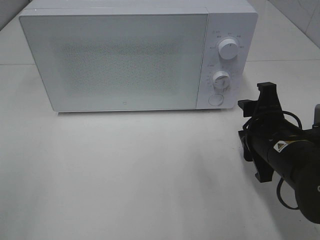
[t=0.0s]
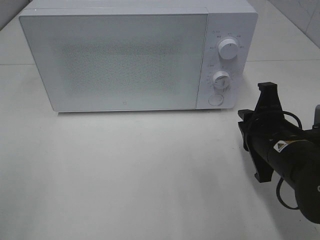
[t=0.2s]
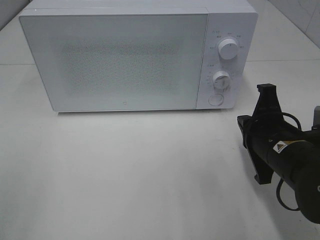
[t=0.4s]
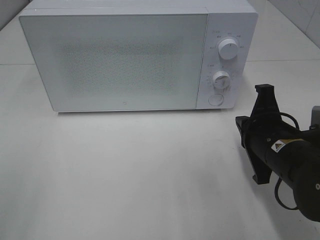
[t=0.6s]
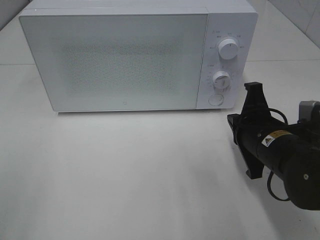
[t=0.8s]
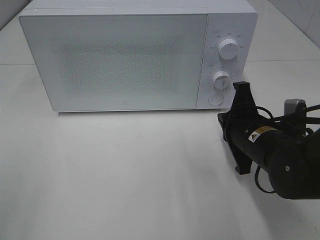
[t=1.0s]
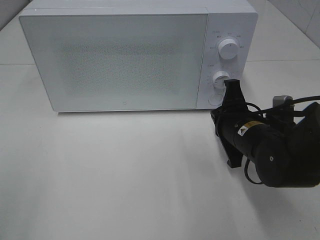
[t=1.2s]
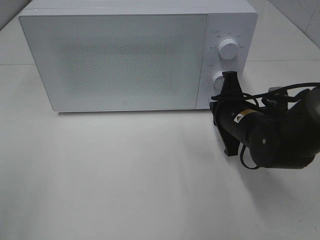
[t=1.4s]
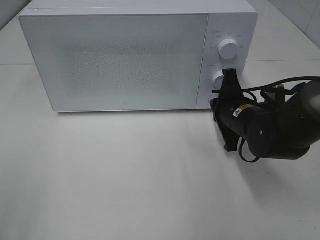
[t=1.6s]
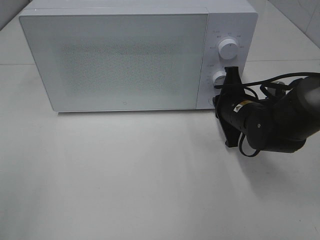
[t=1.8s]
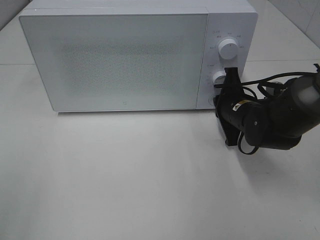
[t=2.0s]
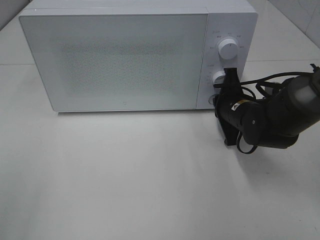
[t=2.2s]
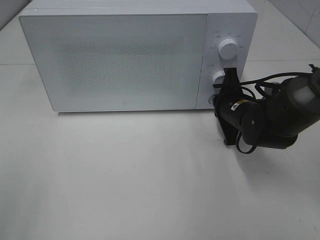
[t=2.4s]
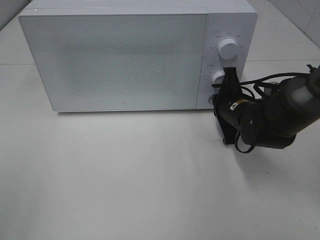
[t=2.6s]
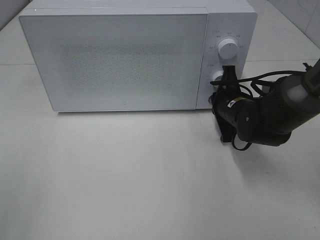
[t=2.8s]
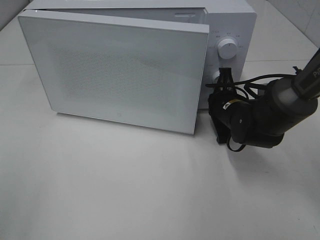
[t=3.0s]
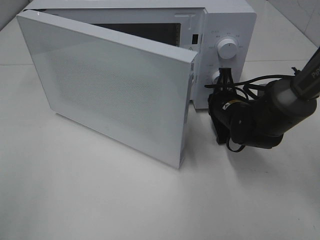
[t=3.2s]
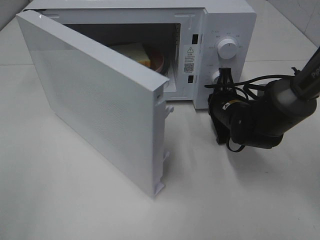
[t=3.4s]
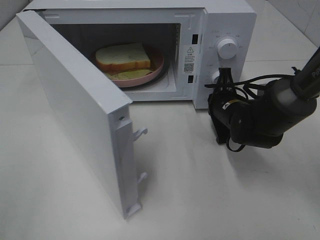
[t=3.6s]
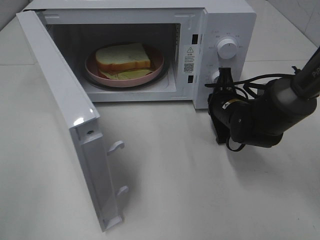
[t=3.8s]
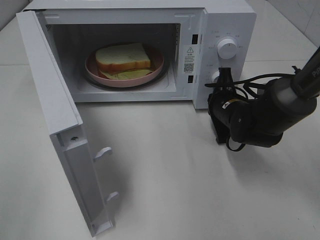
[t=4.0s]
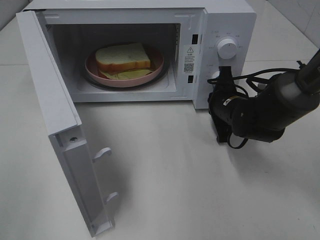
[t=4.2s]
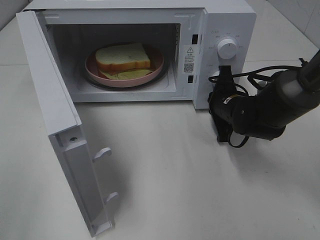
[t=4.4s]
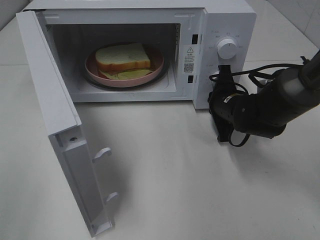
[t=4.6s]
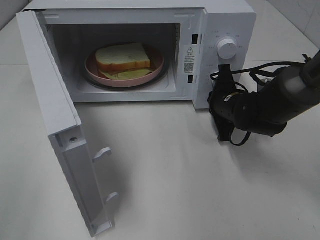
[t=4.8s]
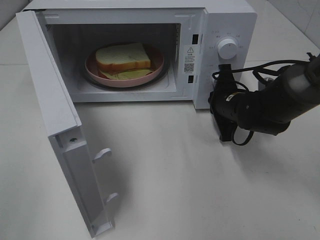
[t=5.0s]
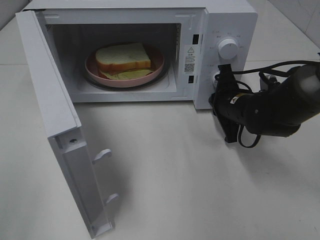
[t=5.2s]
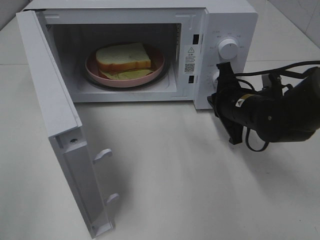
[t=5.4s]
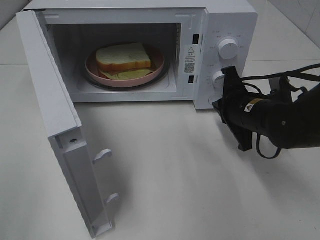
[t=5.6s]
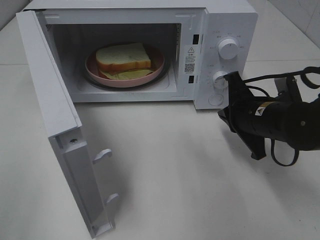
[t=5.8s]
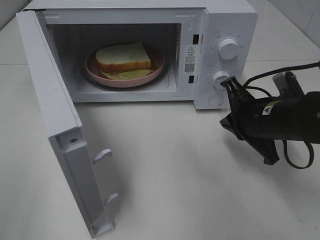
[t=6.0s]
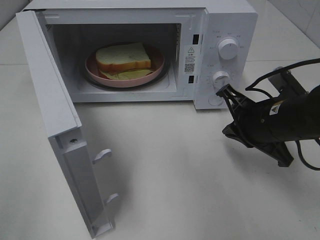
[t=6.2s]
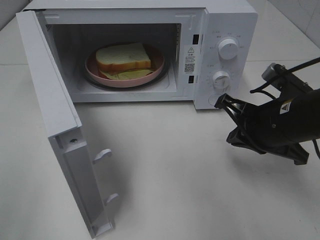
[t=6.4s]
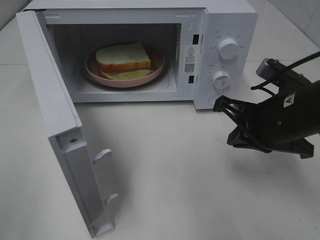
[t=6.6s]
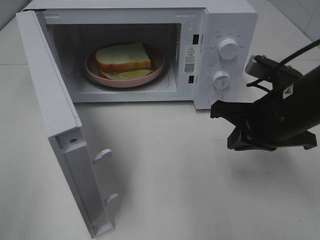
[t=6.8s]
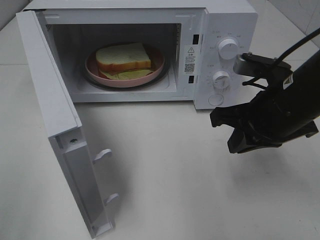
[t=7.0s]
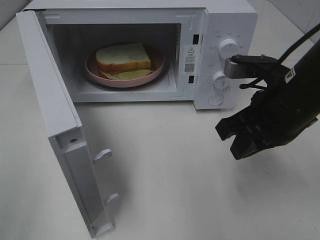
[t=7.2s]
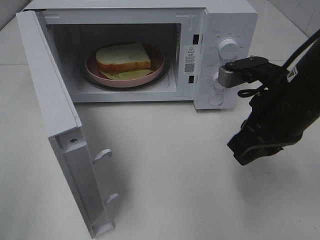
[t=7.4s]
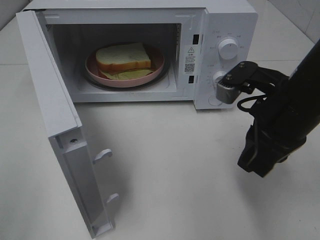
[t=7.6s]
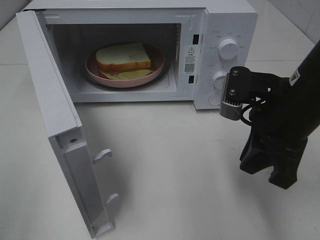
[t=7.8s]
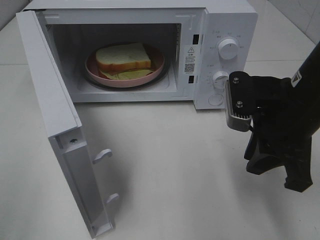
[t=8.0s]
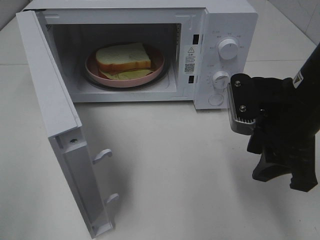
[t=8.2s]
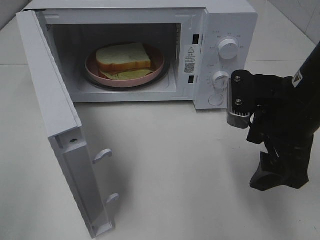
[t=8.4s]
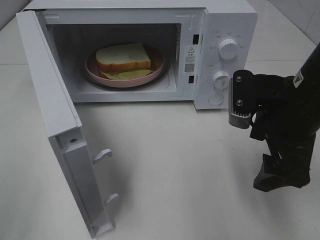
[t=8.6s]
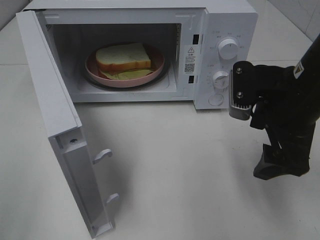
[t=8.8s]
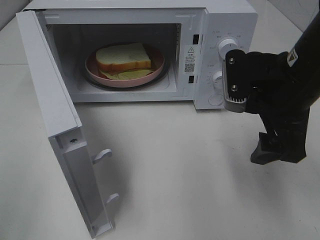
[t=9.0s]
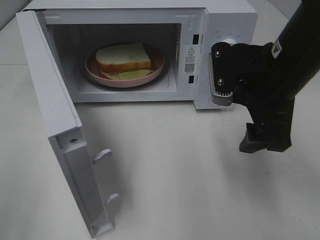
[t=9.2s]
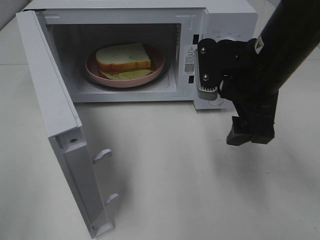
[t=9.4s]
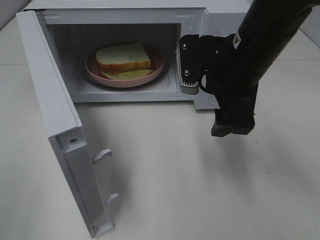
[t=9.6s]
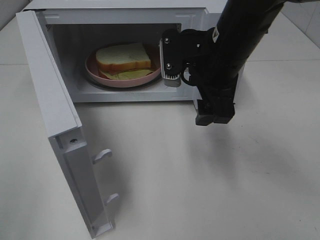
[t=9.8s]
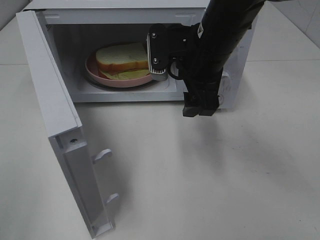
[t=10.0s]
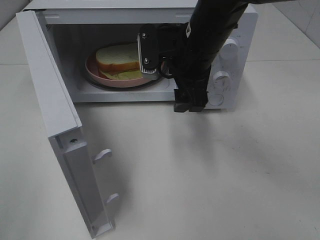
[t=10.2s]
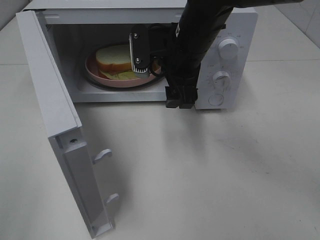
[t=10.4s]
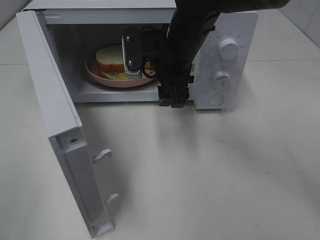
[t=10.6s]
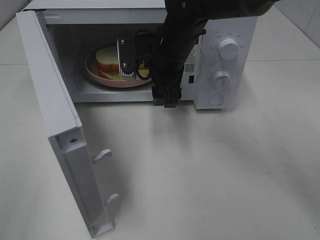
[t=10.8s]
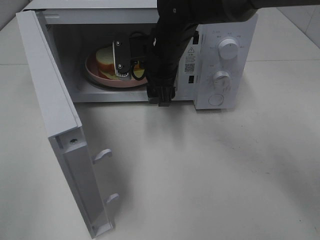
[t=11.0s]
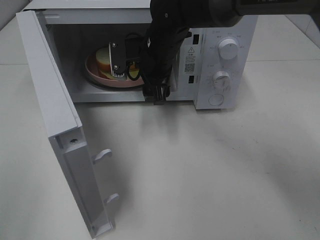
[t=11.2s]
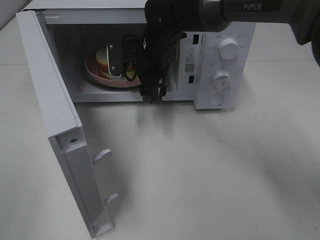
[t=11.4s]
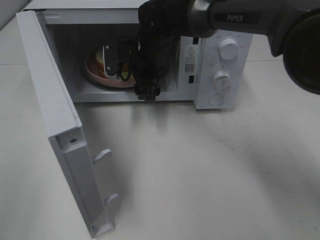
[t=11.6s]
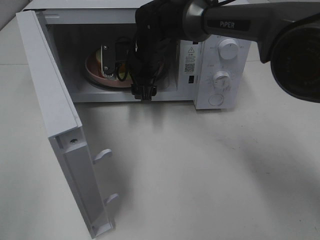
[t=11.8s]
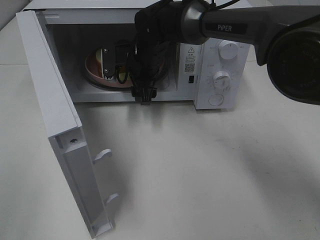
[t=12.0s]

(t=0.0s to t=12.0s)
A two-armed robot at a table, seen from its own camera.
Task of the whole recording: Heat Sandwich.
Step, t=0.0s - t=5.2s: Right hand: press the switch.
t=0.0s - t=1.6s: The right gripper shifts about 10 cm forward, and closes.
t=1.6s - t=3.0s: The right gripper changes place by some 5 cm.
t=4.4s - t=6.0s: The right gripper heads backward and upward, covering approximately 10 cm.
t=6.0s - t=7.6s: The right gripper shifts approximately 5 cm upward.
t=7.6s - t=9.0s: The right gripper opens its fingers.
t=9.0s - t=10.4s: The right gripper shifts roughly 15 cm to the left and forward.
t=10.4s - t=12.0s: The right gripper goes some 15 cm forward, downward and to the left.

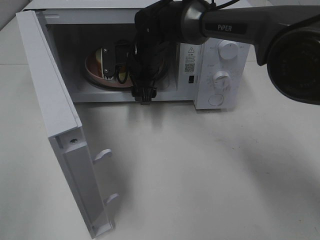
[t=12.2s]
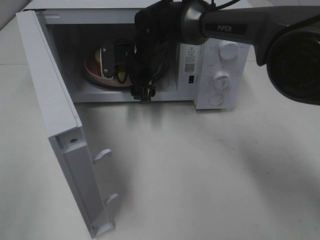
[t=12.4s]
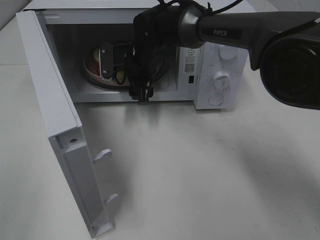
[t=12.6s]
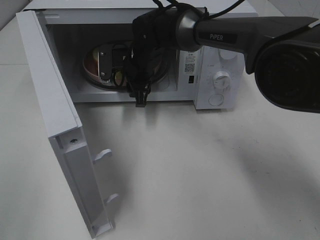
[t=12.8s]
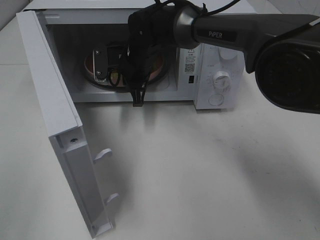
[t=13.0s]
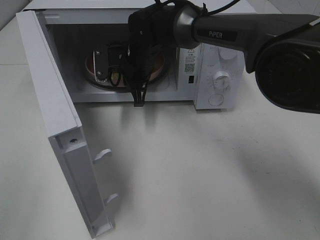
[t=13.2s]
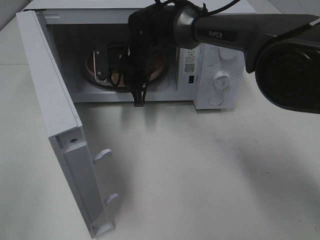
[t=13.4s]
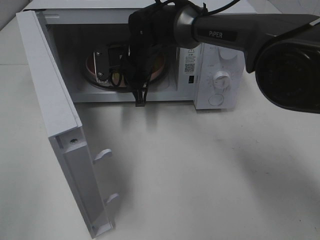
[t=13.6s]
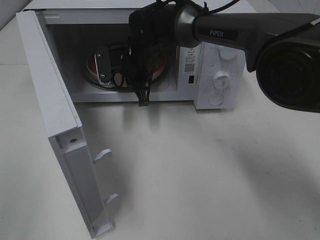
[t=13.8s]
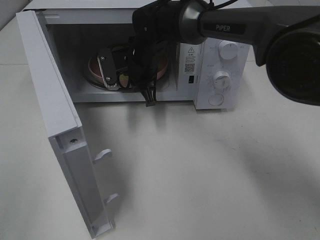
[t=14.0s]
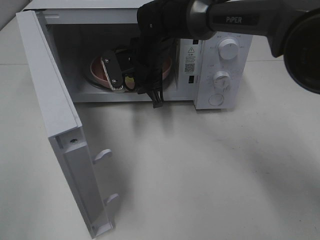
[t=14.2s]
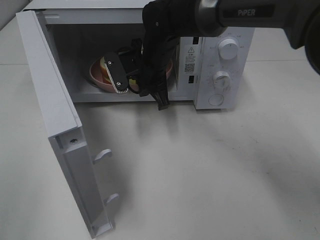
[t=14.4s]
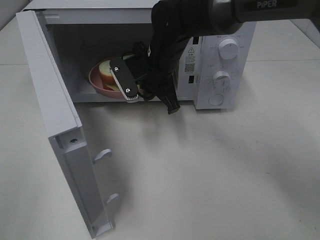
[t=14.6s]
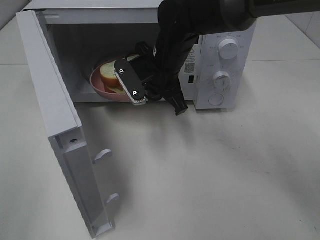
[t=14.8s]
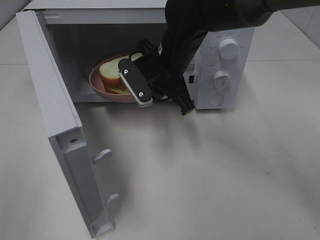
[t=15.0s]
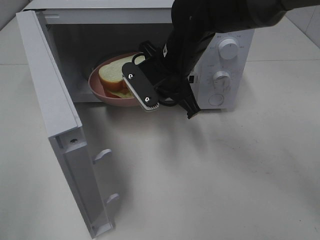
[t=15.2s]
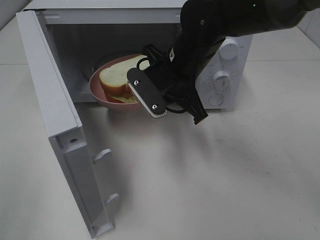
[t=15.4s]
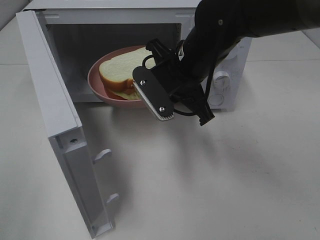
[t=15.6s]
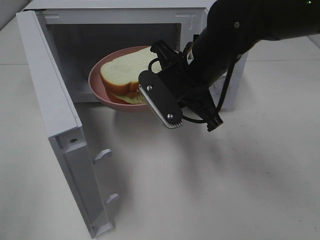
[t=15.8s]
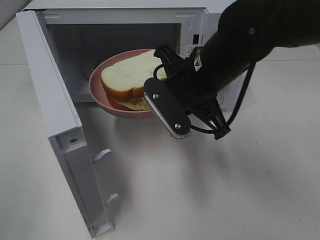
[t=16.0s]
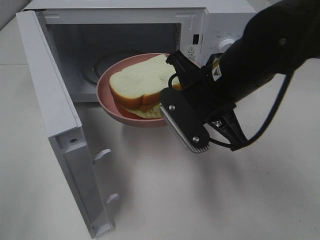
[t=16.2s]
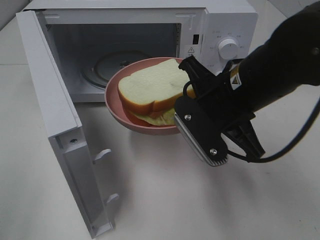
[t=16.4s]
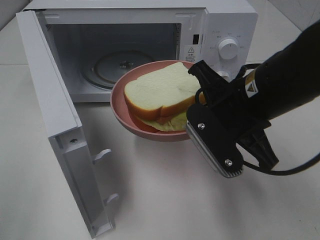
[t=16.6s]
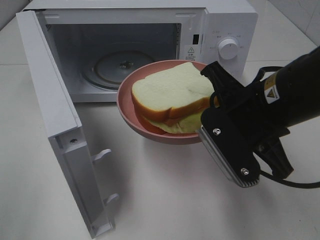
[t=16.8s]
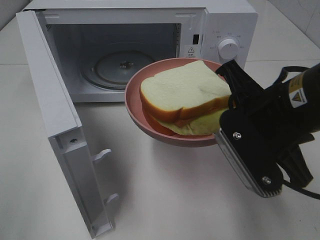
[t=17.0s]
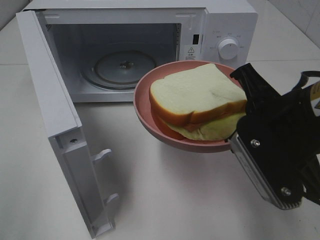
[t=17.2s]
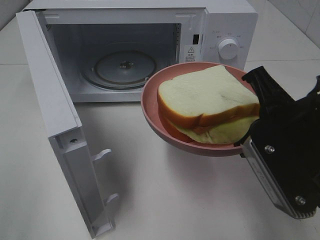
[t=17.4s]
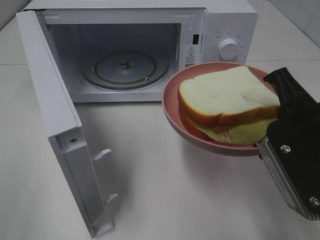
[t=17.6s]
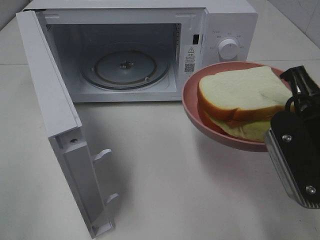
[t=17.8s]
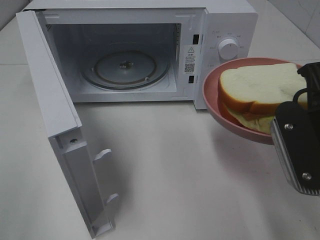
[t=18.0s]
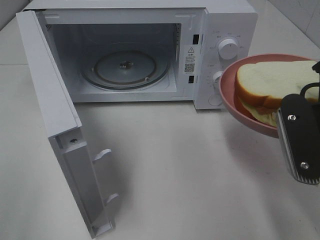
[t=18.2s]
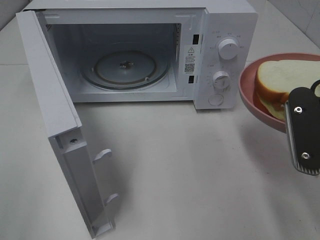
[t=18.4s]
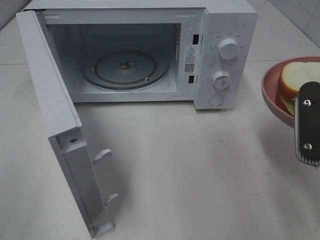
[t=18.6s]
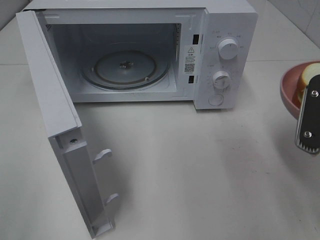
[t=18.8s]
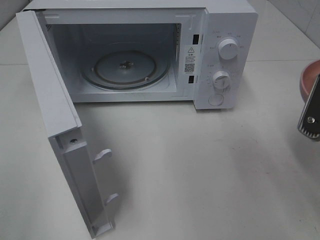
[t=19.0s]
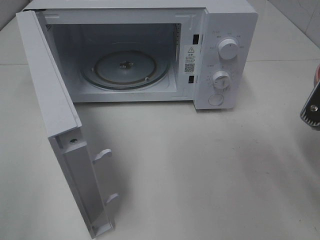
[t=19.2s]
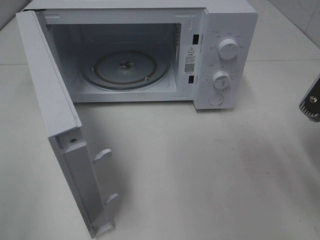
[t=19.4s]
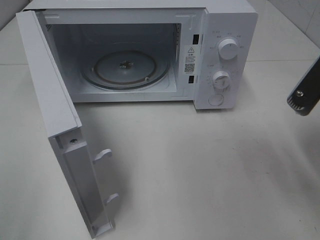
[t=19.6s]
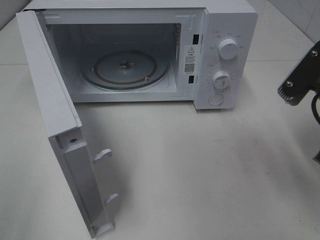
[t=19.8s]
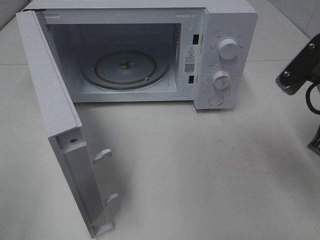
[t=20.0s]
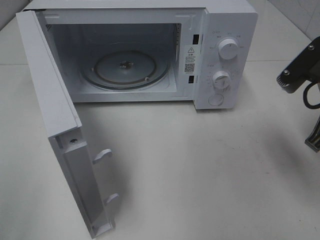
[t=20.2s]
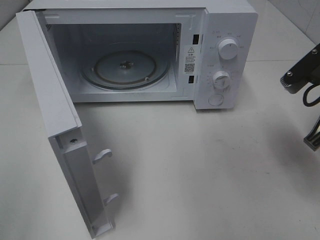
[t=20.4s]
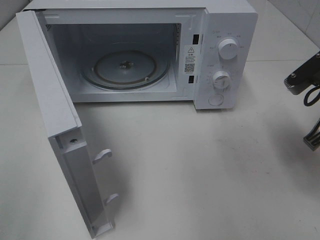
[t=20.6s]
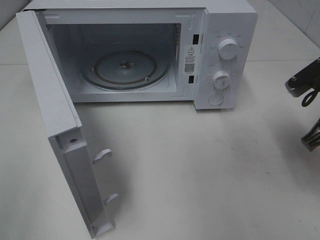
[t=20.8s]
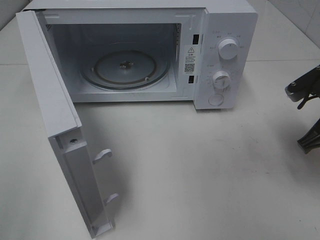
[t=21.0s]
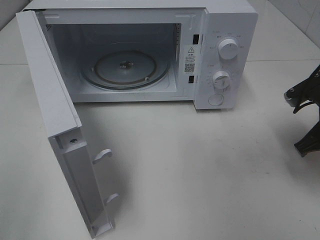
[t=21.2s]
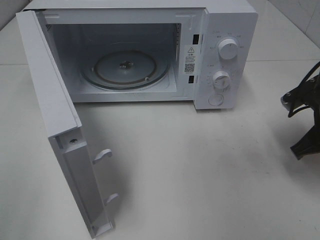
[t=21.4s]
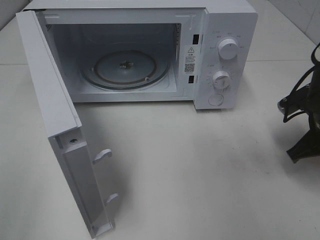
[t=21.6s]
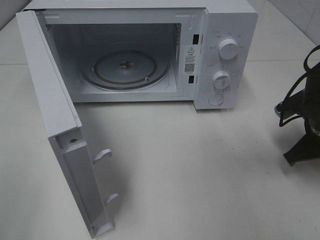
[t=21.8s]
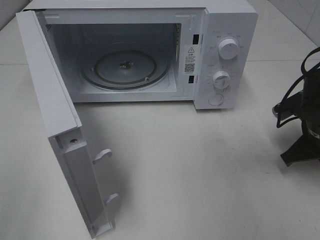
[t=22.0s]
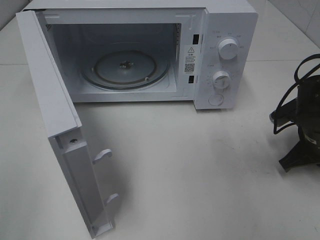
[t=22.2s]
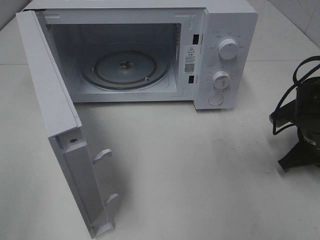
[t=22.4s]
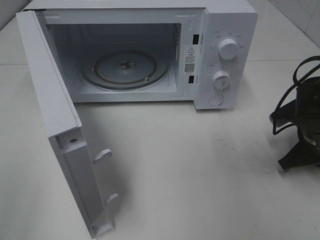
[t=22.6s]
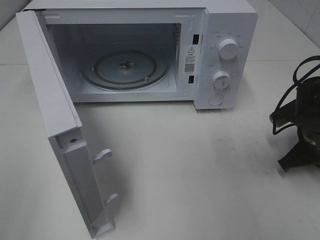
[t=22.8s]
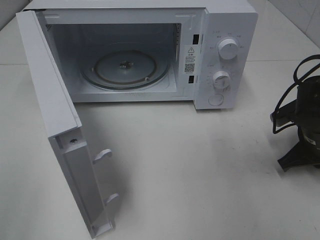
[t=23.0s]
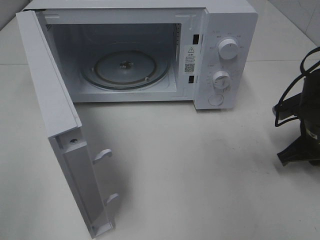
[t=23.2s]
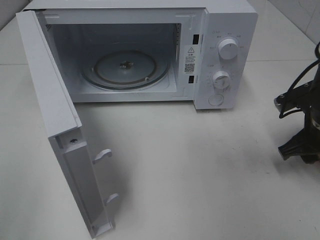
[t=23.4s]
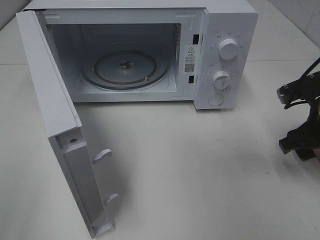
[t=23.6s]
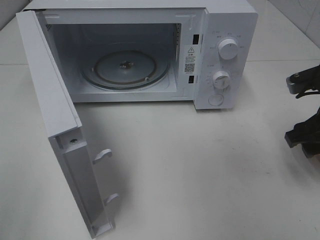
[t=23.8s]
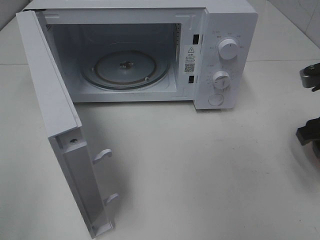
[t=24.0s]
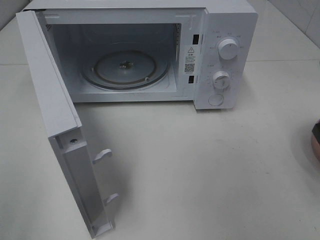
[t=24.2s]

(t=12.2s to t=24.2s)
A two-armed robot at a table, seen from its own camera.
Task of the whole recording: Heat Sandwich.
Step, t=13.4s - t=23.4s: Right hand: place the plate on the table.
t=12.2s - t=13.8s: The right gripper closes its fingers.
t=13.8s - t=15.2s: The right gripper travels backward and to the right by about 10 cm.
t=15.2s - t=16.6s: The right gripper shifts roughly 15 cm backward and to the right.
t=16.6s - t=18.2s: The right gripper is displaced to the right and backward by some 10 cm.
t=19.8s - t=21.2s: The right gripper shifts roughly 15 cm downward, forward and to the right.
t=21.2s - t=22.6s: The right gripper moves downward, roughly 5 cm.
t=22.6s - t=24.2s: The right gripper moves upward and backward, about 15 cm, and opens.
